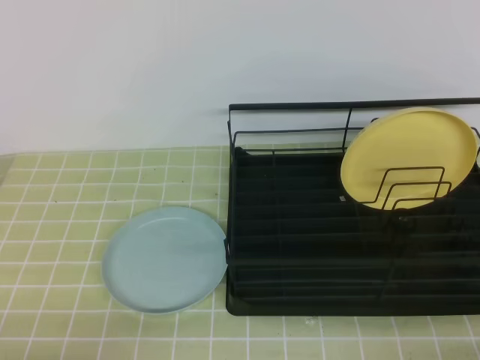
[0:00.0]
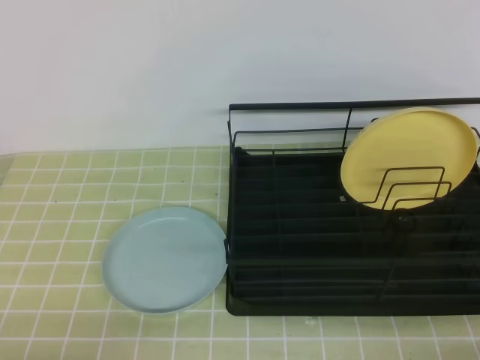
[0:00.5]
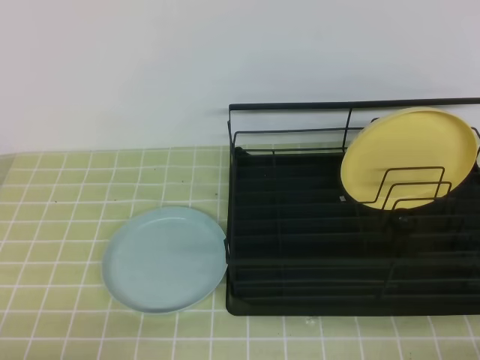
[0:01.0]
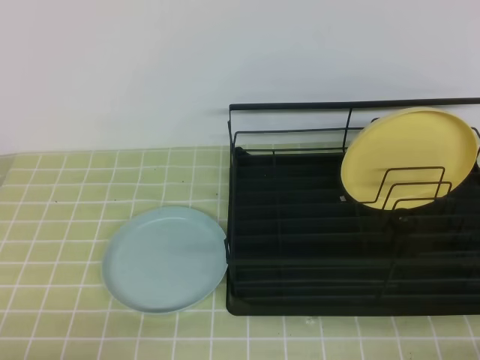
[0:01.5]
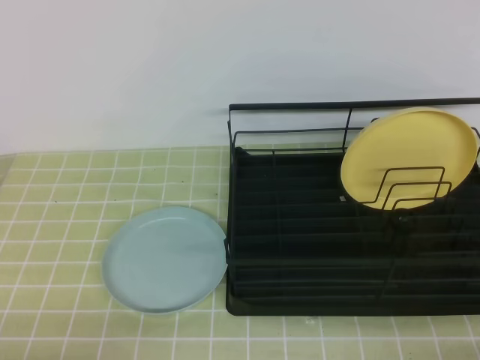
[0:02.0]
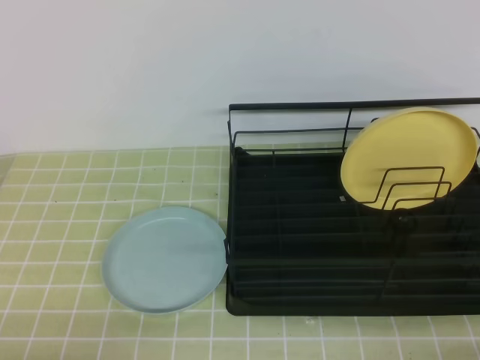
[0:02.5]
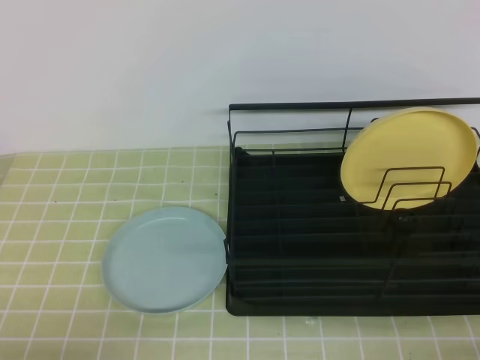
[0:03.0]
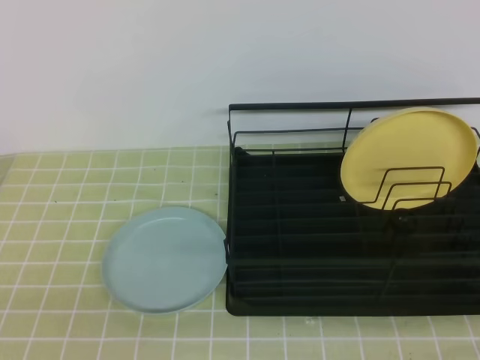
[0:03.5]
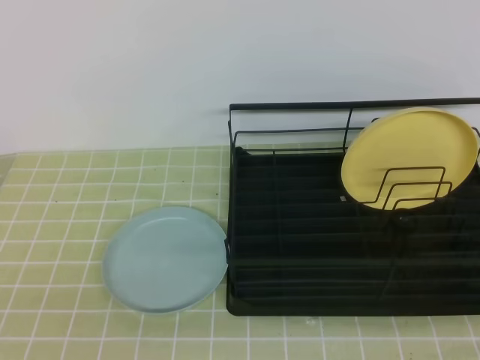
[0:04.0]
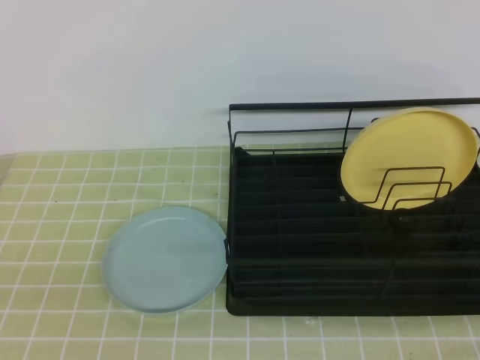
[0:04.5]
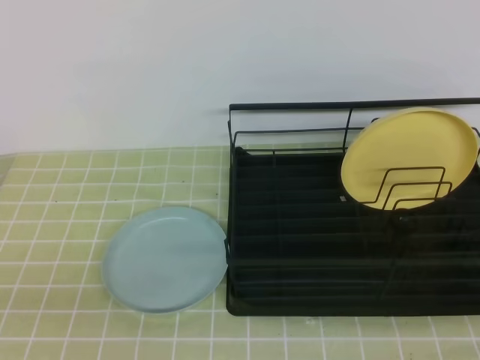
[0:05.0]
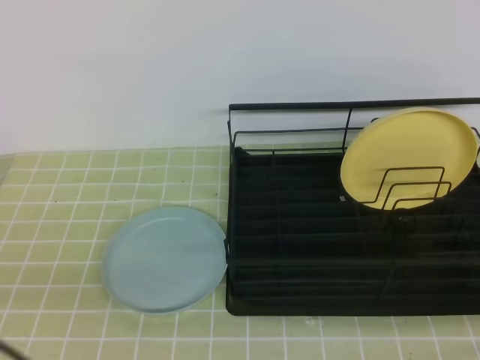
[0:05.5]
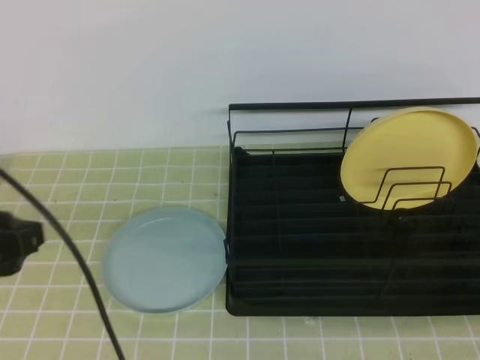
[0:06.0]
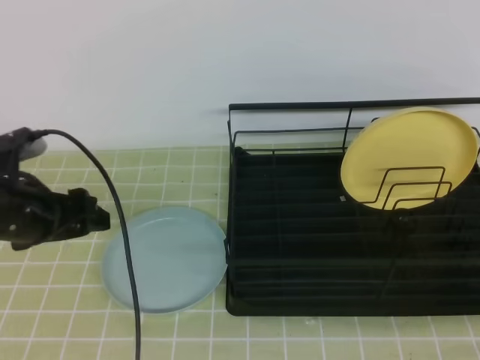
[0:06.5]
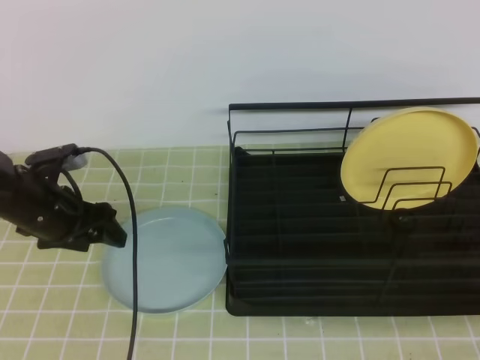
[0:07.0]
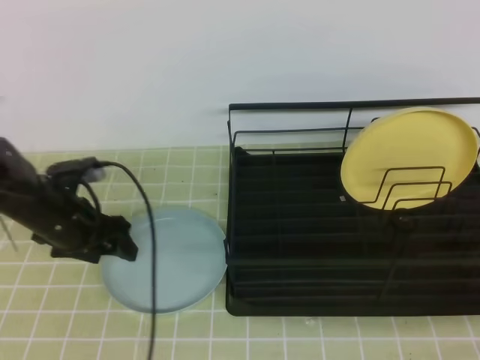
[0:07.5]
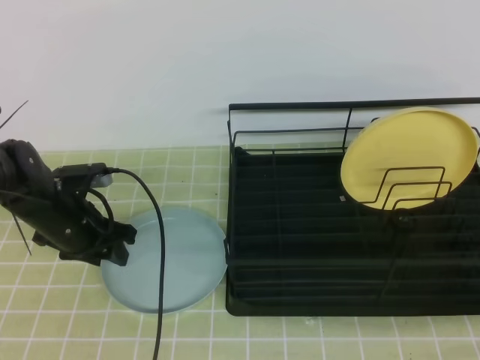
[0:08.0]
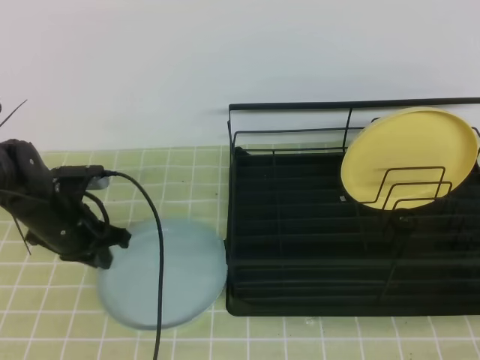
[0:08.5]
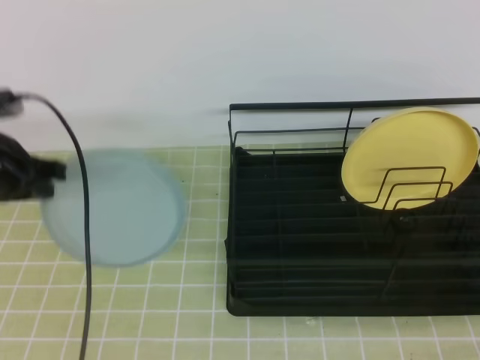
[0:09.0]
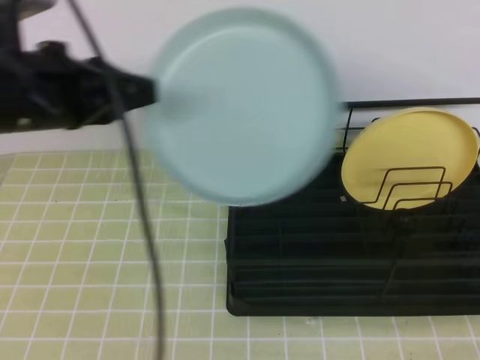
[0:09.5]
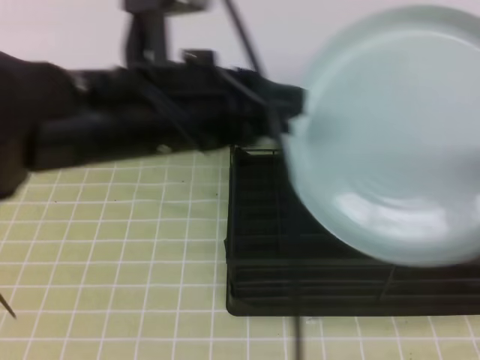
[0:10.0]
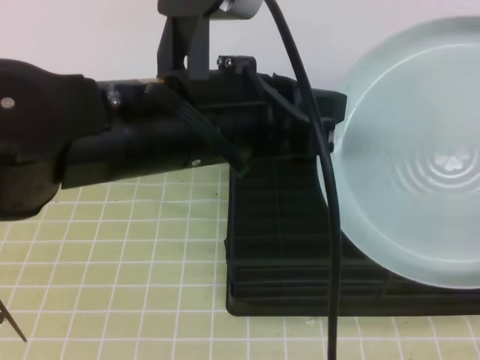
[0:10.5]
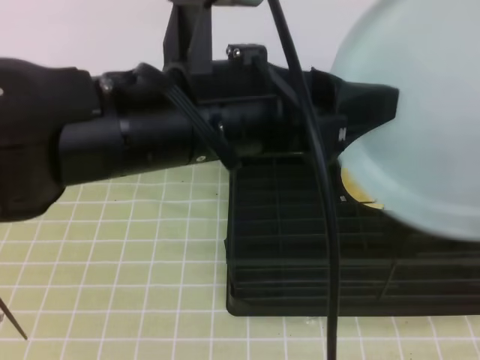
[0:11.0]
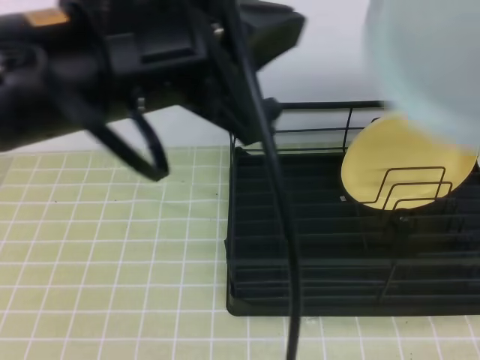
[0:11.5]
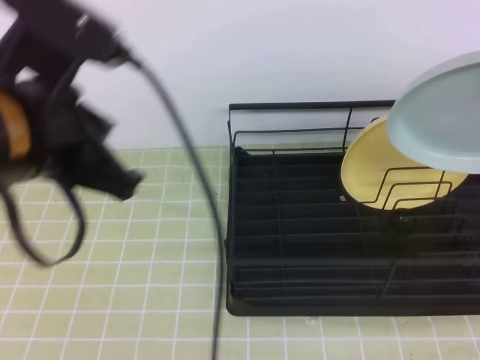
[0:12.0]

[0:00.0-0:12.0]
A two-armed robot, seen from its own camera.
Step, 0:00.0 to 0:06.5: Left grab the blue plate.
Step, 0:09.0 to 0:11.0: Right place it at the front of the shelf.
0:00.0 to 0:02.0: Neither gripper changes place.
0:04.0 to 0:06.0: The left gripper moves forward, some 15 cm, and opens.
0:06.0 to 0:08.0: The left gripper shifts some 25 cm forward and downward.
0:08.0 to 0:10.0: The right gripper moves upward, some 10 cm, and opens. The left gripper travels upward, to the right and backward by some 30 cm, and closes.
0:10.0 to 0:12.0: The left gripper moves to the left, approximately 5 cm, and opens, then closes once more. Meanwhile the right gripper travels forward and upward by some 15 cm, and closes its fingers.

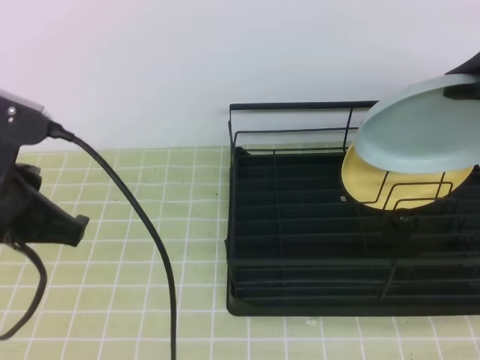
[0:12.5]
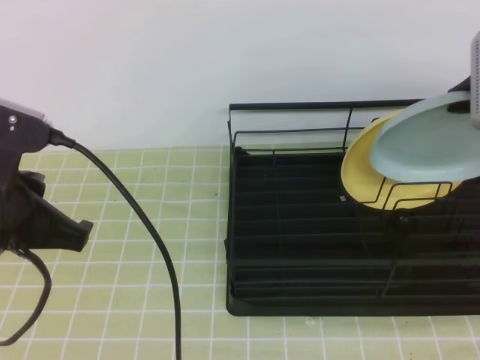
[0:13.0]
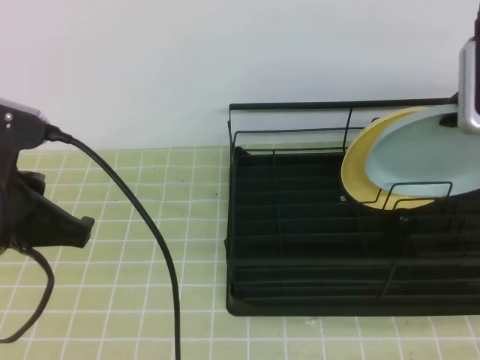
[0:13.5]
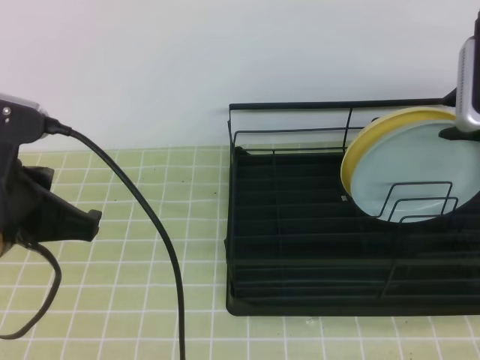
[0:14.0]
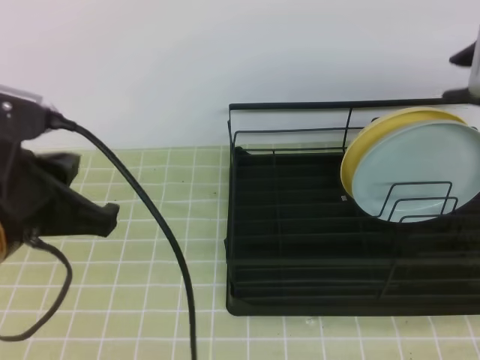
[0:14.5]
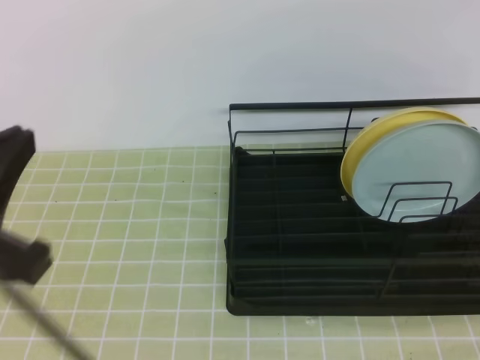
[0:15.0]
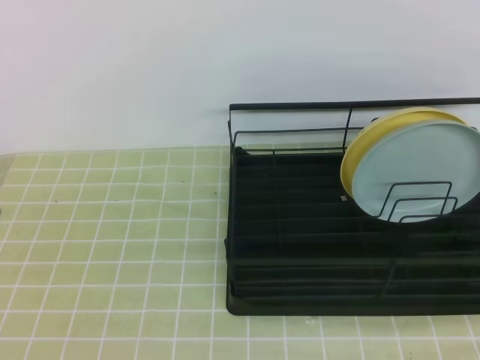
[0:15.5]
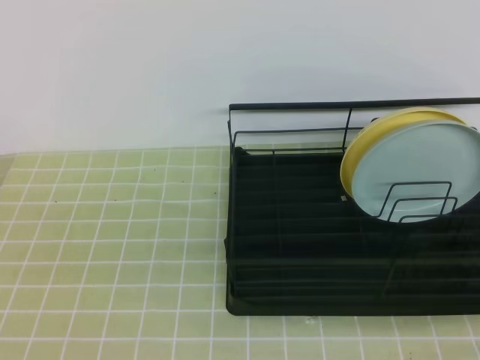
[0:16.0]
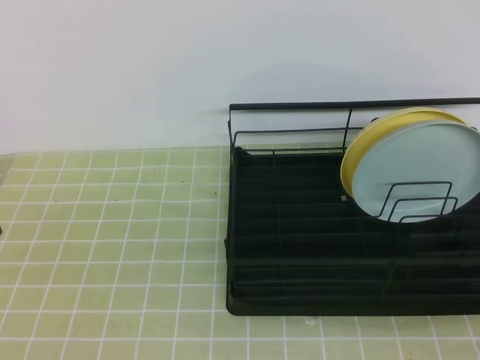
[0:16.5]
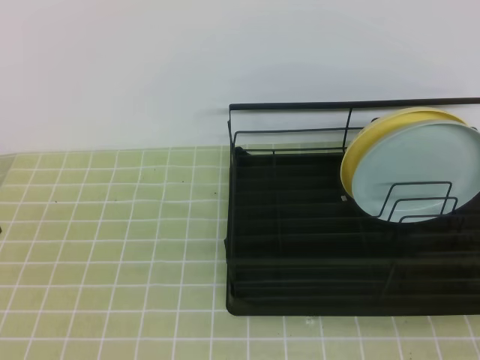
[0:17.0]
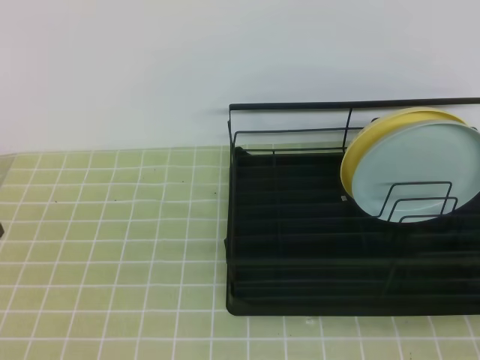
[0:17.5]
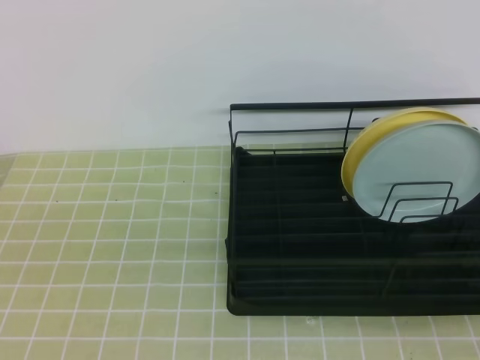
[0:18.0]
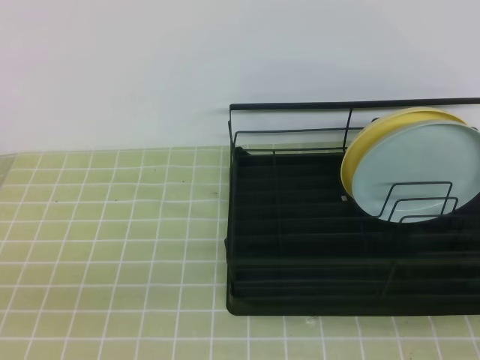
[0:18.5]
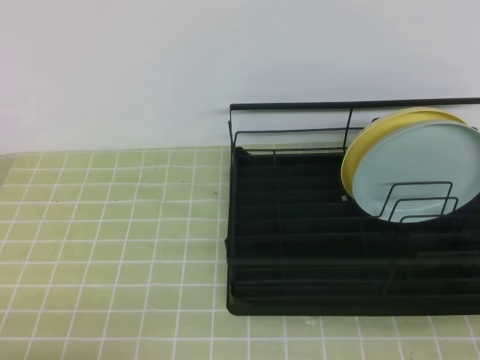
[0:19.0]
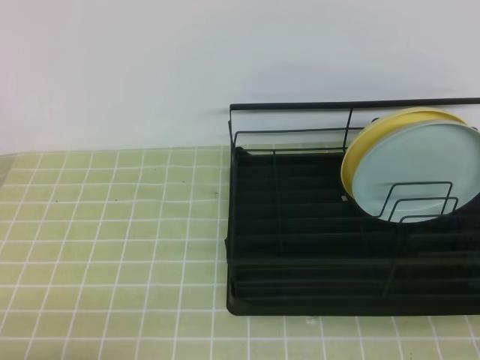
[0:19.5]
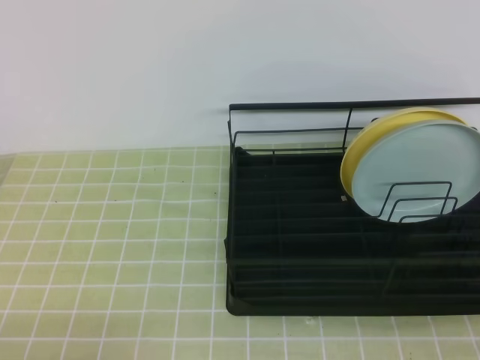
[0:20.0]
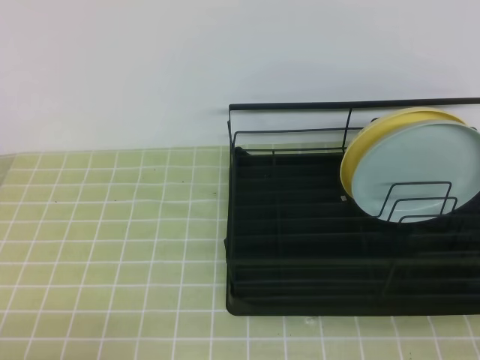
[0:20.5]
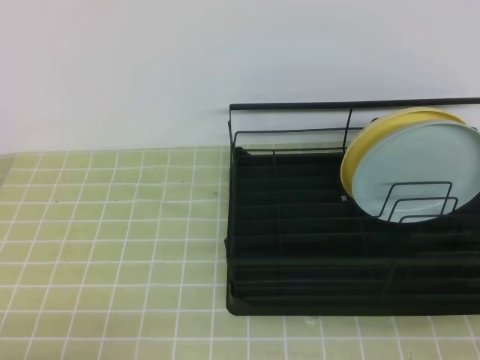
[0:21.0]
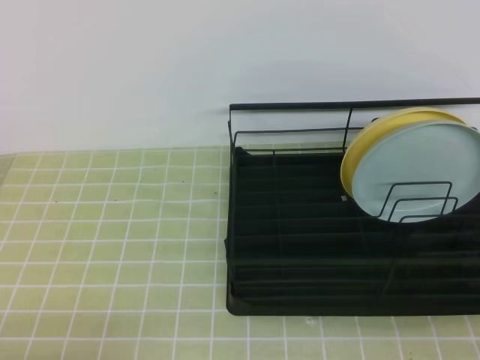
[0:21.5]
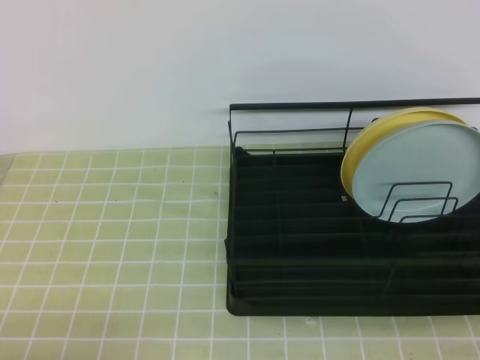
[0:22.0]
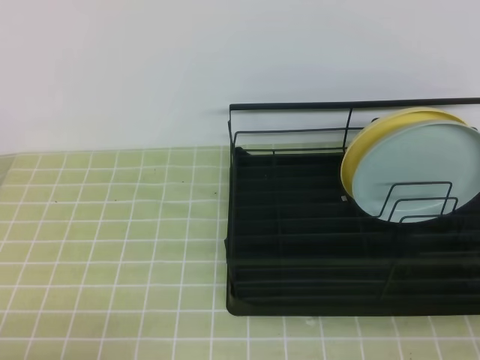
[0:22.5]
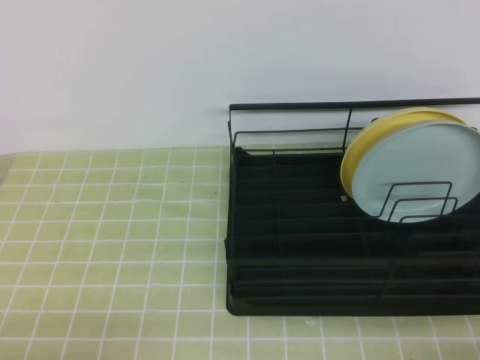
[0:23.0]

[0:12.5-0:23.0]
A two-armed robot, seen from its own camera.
0:12.5 to 0:14.5: The right gripper opens.
0:14.5 to 0:16.5: The left gripper moves backward and to the left, approximately 10 cm, while the right gripper travels backward and downward by about 30 cm, and closes.
